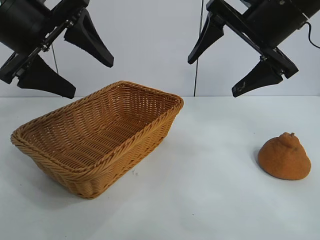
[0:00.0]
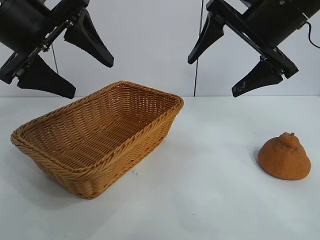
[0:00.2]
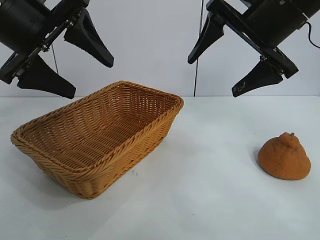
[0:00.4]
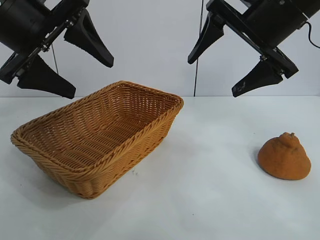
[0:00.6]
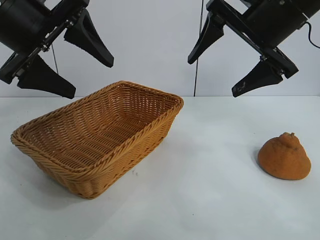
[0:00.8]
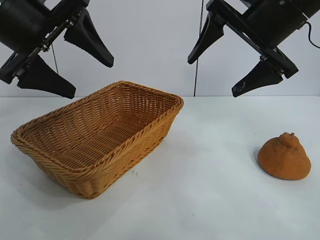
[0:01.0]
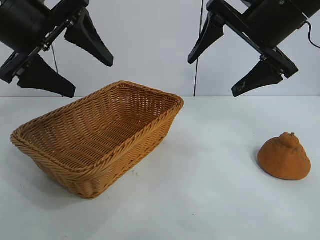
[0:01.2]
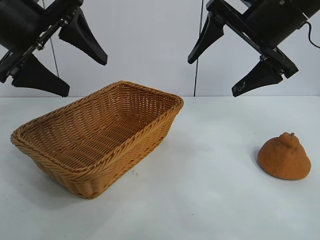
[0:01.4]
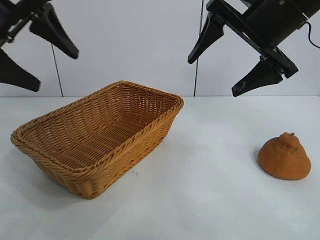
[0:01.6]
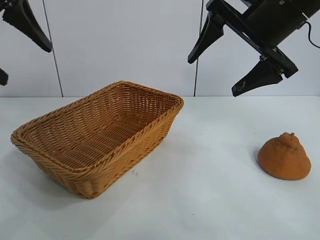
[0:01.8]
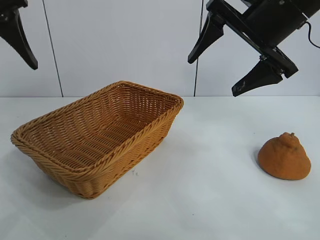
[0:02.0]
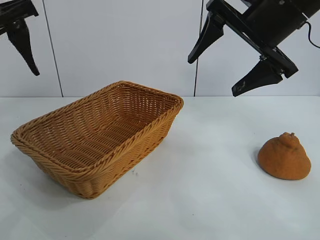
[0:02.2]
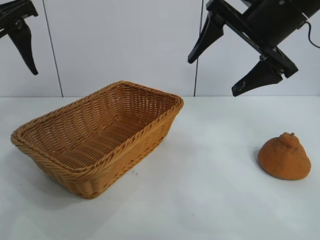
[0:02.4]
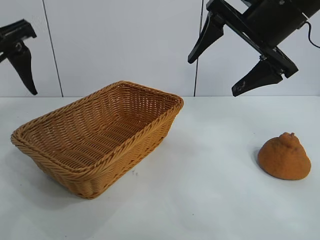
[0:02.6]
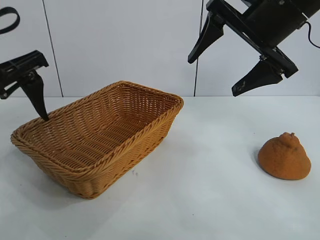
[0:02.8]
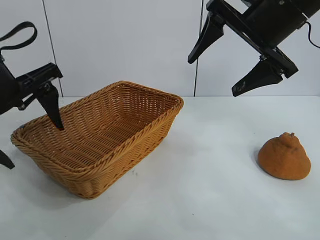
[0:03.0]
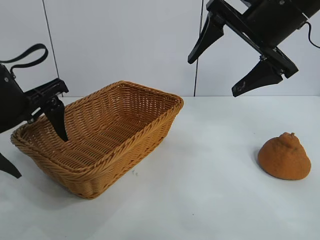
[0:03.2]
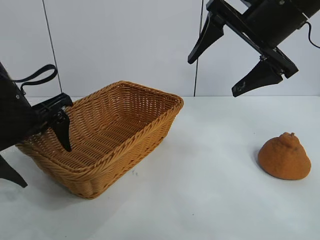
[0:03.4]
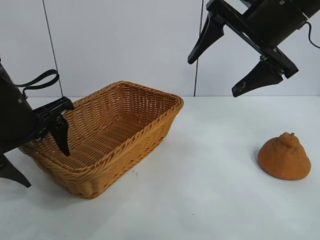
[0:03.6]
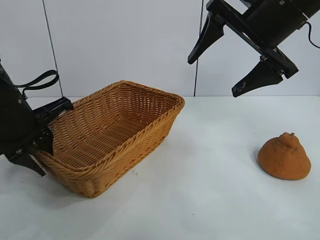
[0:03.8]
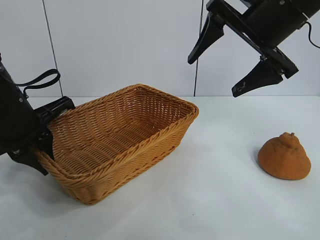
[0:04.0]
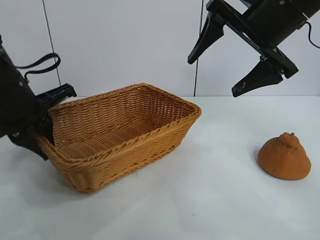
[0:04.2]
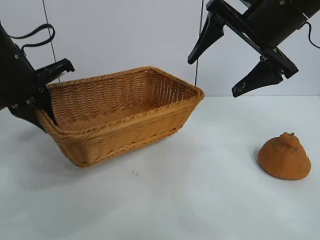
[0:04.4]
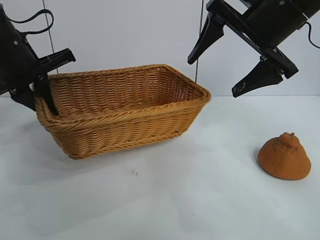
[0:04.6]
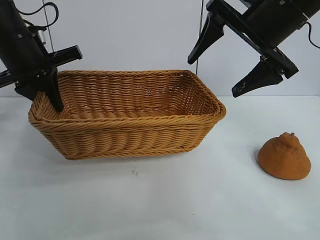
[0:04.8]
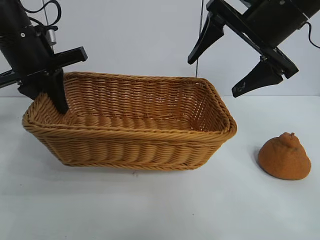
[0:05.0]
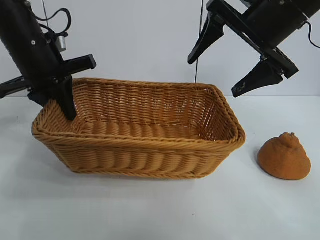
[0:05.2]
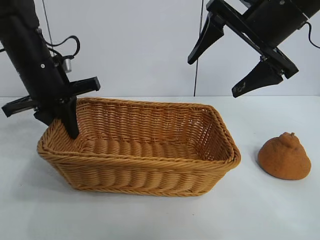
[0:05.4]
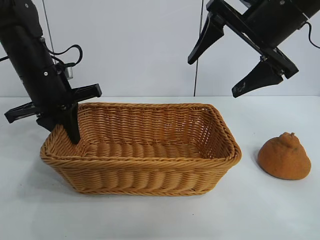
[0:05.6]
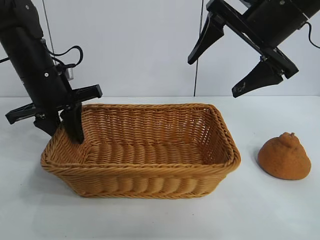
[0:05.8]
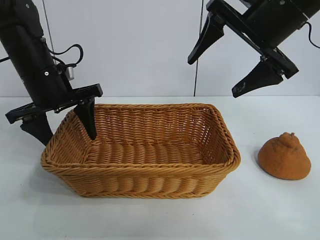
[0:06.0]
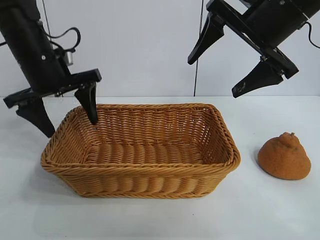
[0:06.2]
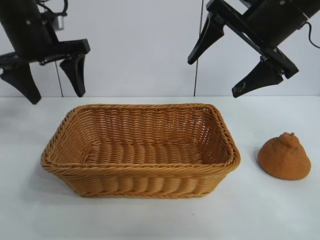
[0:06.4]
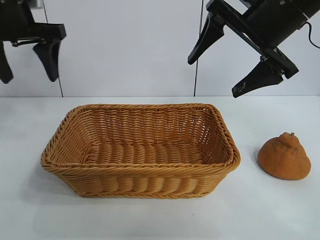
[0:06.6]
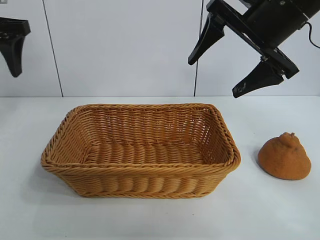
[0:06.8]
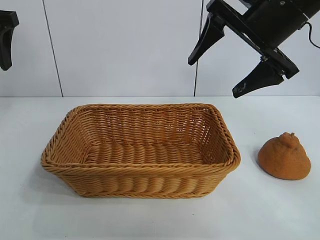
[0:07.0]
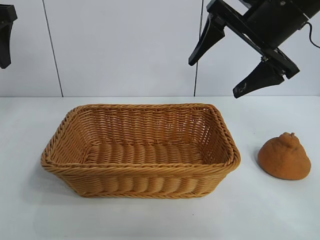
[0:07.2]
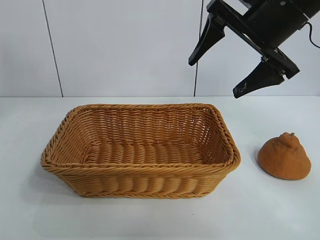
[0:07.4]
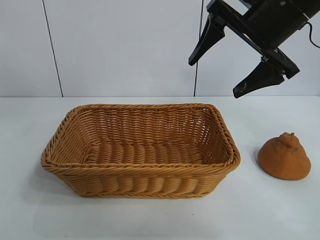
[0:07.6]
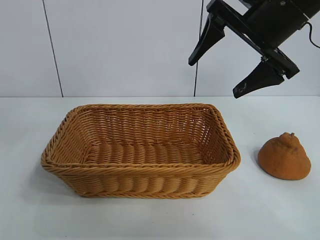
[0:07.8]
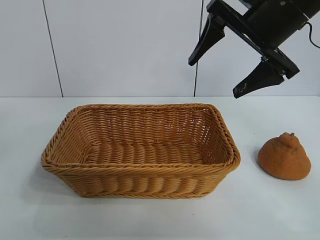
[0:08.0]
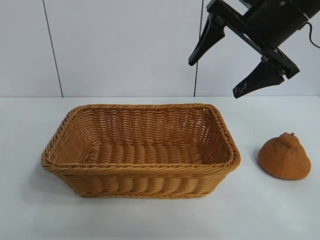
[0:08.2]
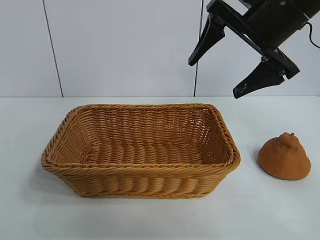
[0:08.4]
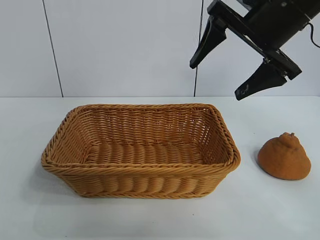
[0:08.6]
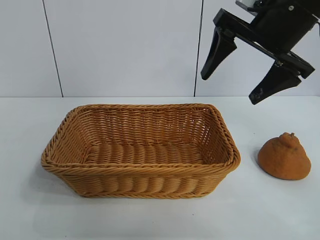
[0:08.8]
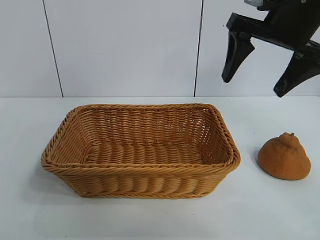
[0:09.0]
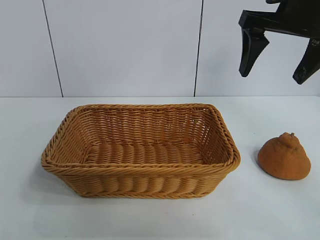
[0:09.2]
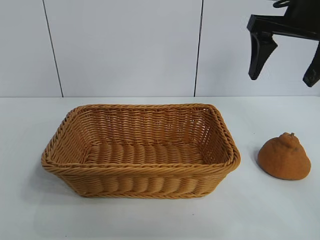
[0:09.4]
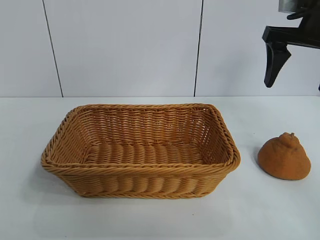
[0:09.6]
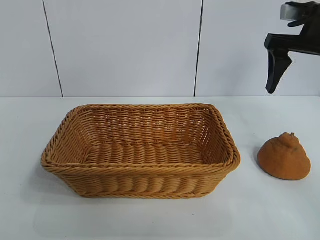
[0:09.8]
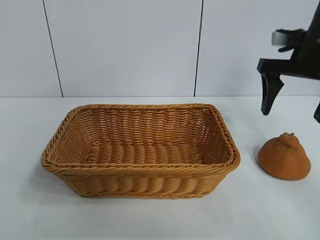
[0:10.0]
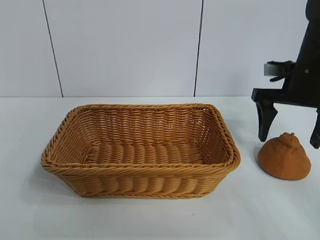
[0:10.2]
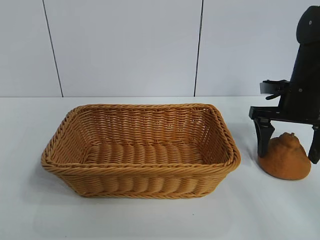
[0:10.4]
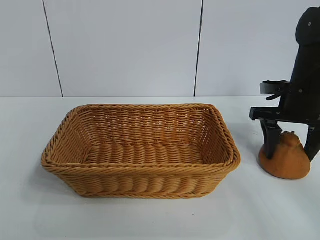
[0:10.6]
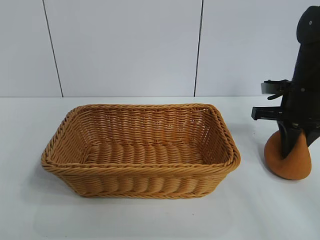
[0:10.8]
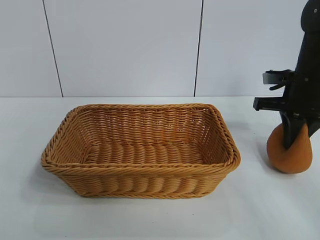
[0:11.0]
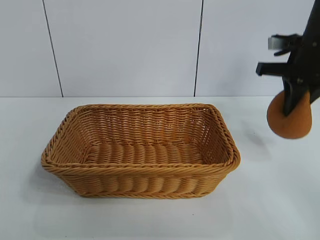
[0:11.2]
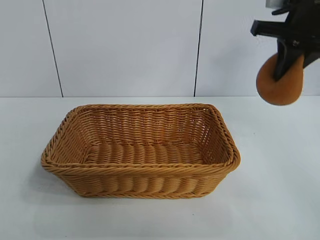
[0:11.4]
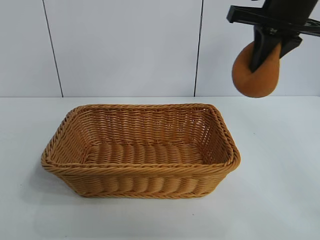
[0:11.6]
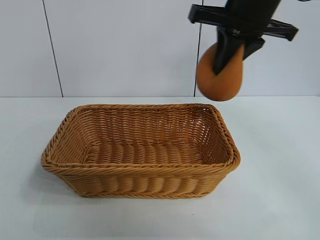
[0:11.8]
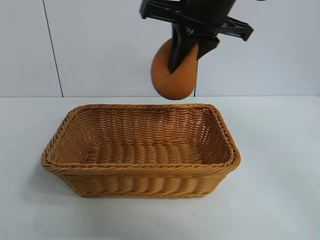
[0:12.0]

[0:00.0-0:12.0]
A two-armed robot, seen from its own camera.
Task of the whole recording: pick up the orange and put it into the basket.
Step, 0:01.0 to 0:03.8: Grasp the basket with left gripper.
Step, 0:04.0 to 0:05.8: Place the basket in the center of view with left gripper.
Step, 0:06.0 to 0:10.6: Grasp the orange with right gripper.
